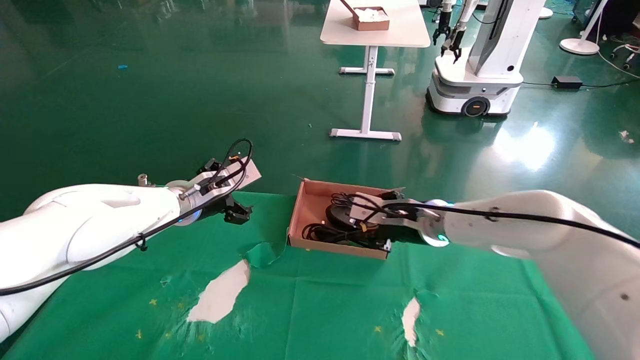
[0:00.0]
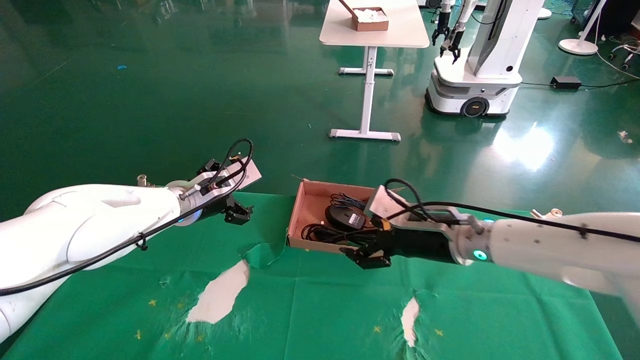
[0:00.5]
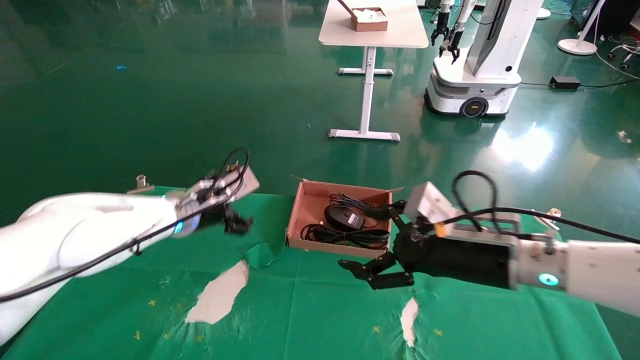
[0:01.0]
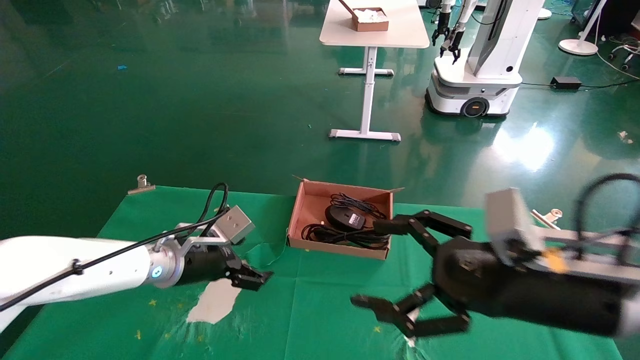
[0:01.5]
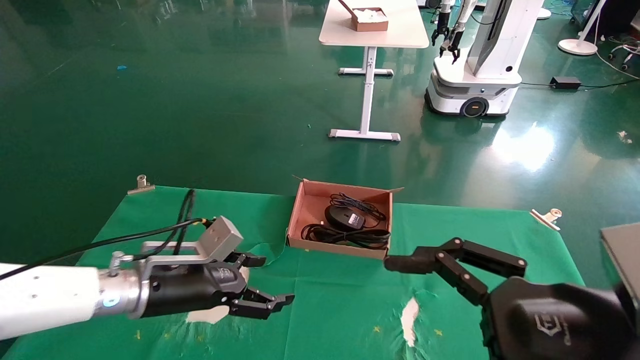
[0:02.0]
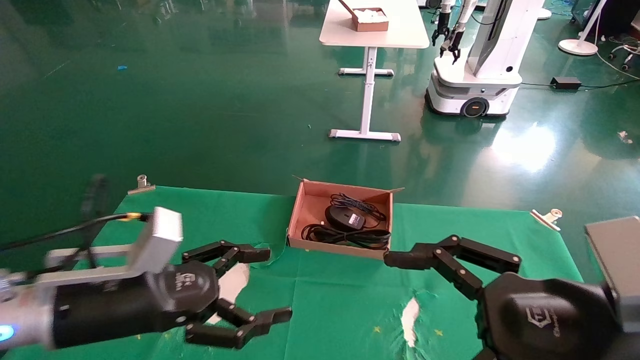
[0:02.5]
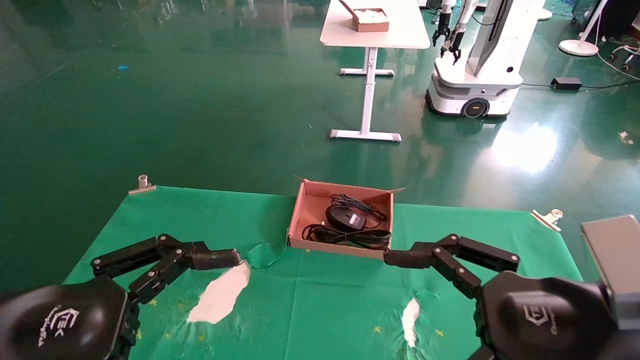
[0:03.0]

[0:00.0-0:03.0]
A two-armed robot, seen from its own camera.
0:00.0 to 0:01.5: The right gripper goes approximately 25 cm backward and to the right, and opens up. Meanwhile the left gripper is displaced downward and backward by approximately 10 cm.
0:01.5 to 0:03.0: The left gripper is displaced backward by approximately 25 cm. The right gripper goes approximately 5 cm backward.
